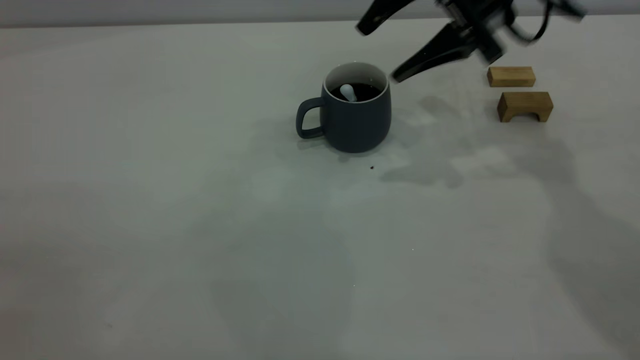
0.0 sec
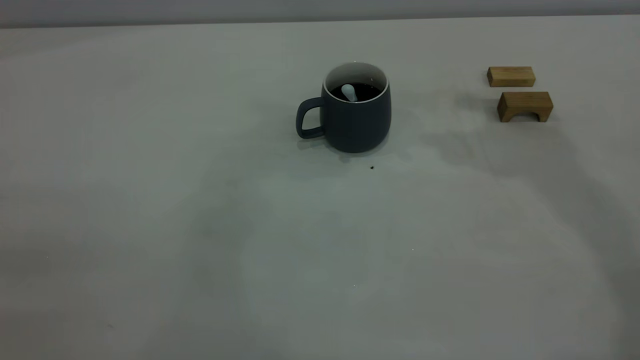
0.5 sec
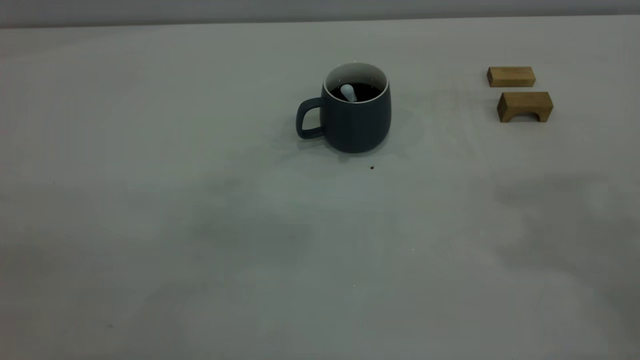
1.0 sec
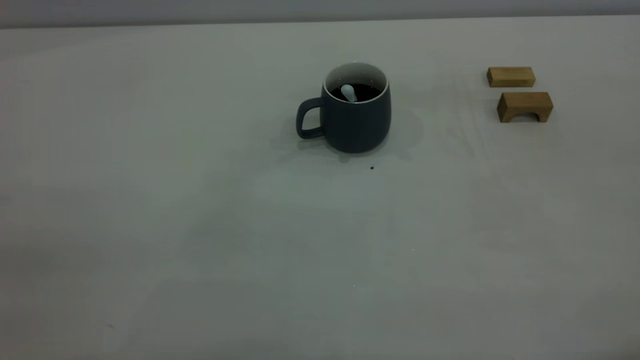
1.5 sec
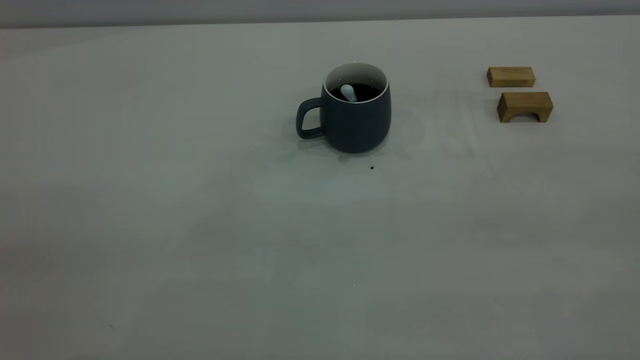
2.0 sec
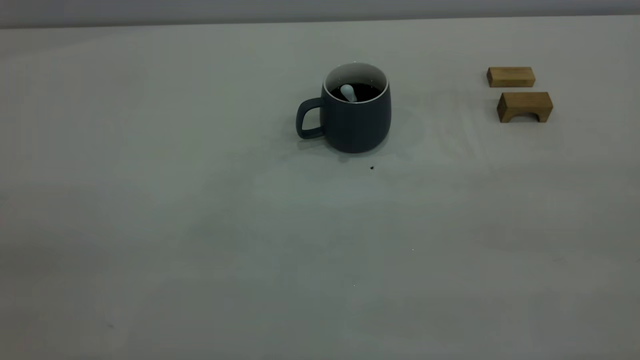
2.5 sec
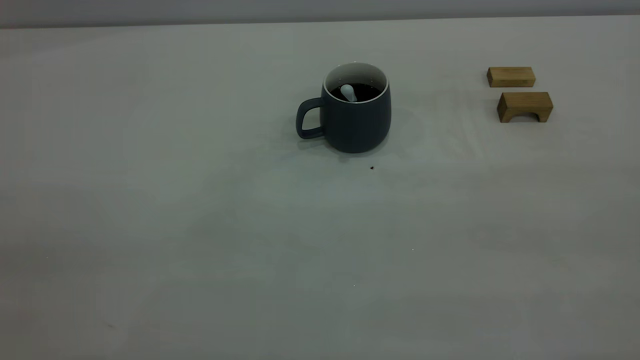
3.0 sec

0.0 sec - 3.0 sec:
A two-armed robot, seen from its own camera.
0.0 sec - 1.5 sec: The right gripper goes some 40 cm backward and upward, and closes.

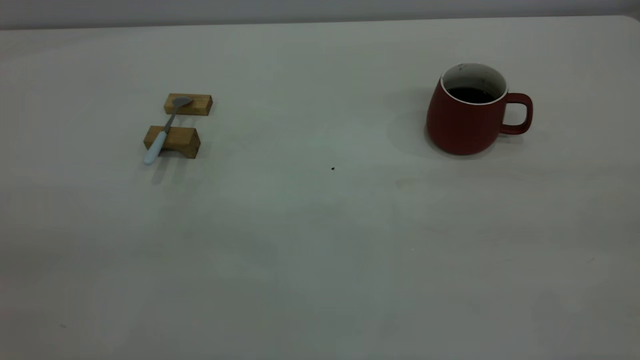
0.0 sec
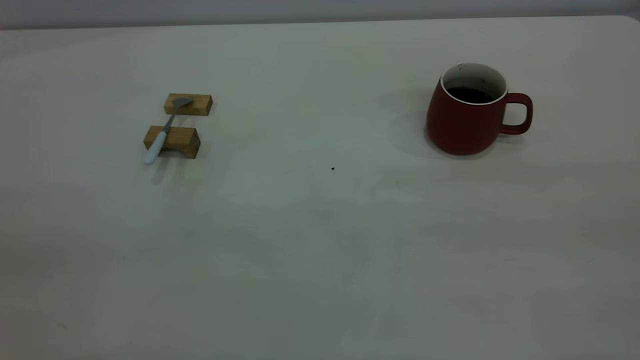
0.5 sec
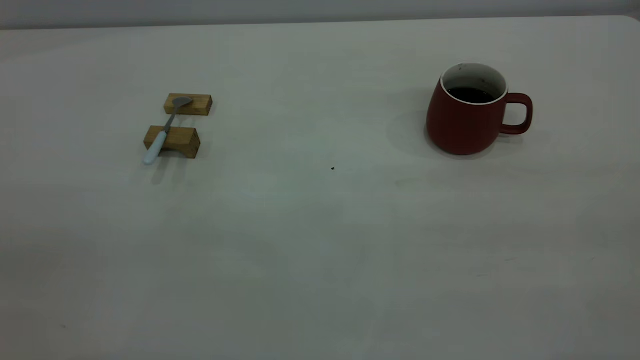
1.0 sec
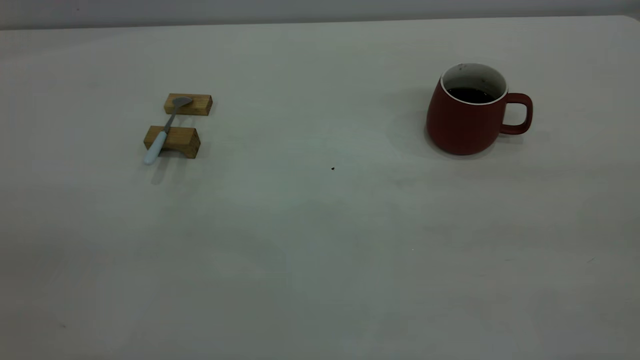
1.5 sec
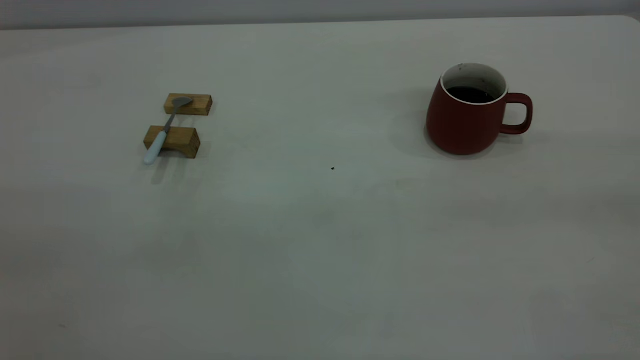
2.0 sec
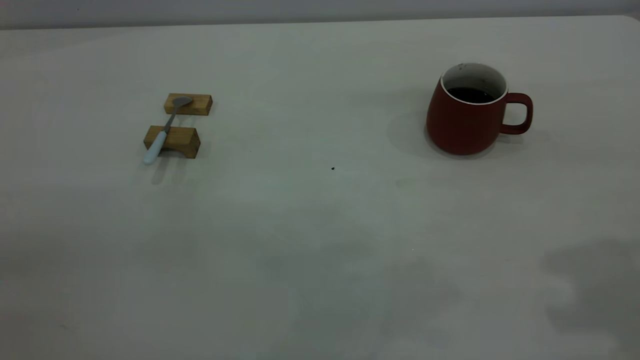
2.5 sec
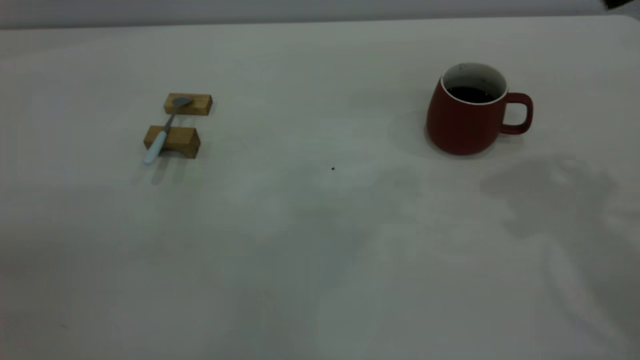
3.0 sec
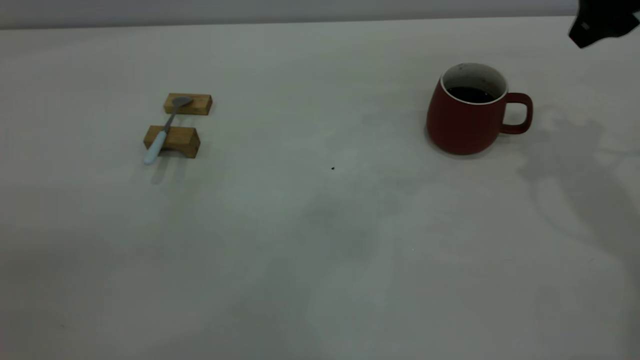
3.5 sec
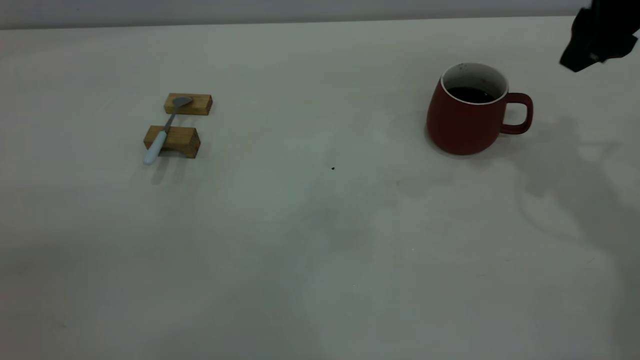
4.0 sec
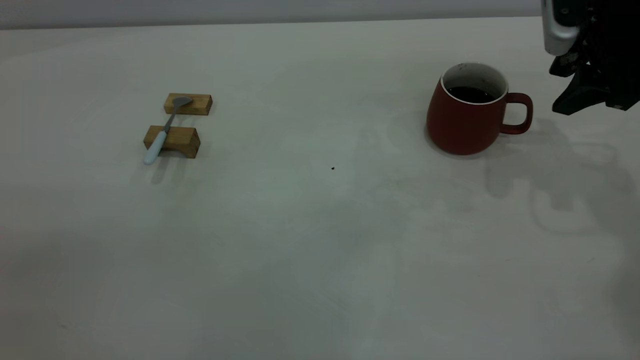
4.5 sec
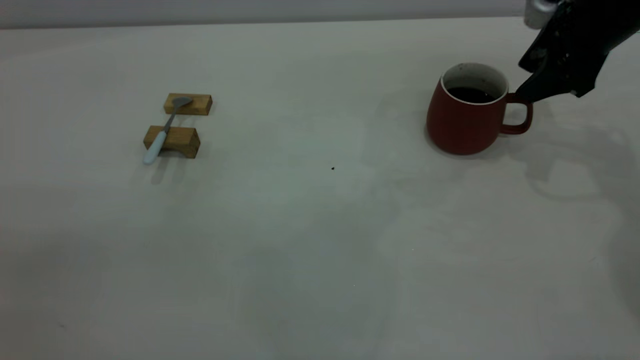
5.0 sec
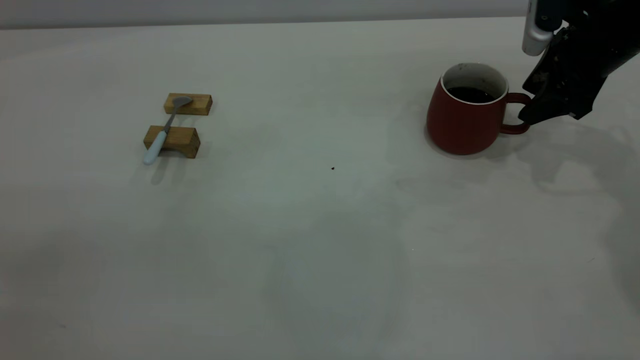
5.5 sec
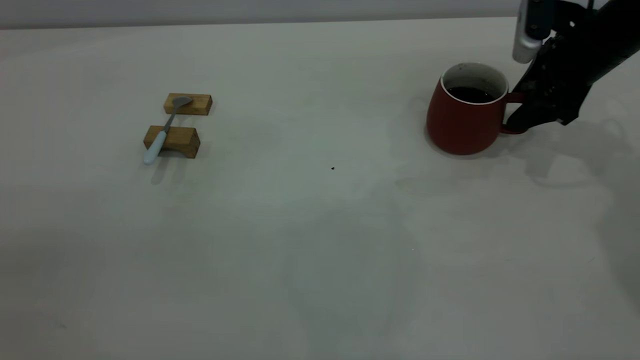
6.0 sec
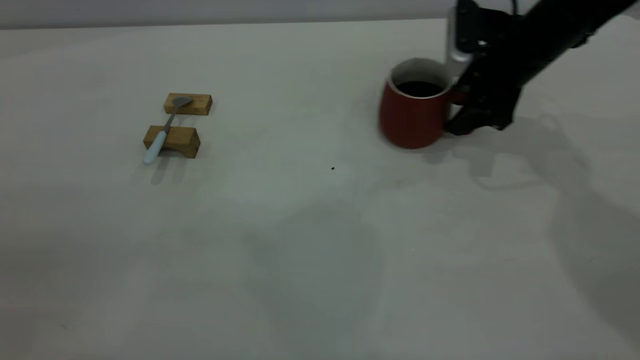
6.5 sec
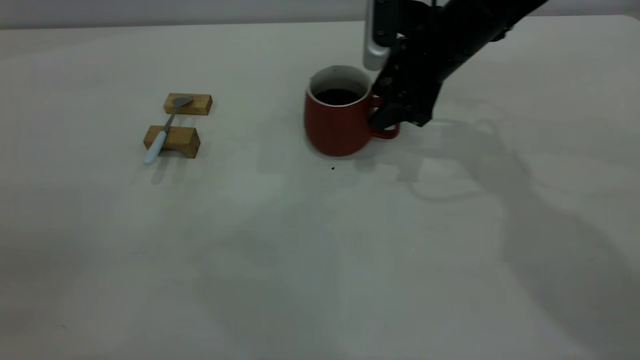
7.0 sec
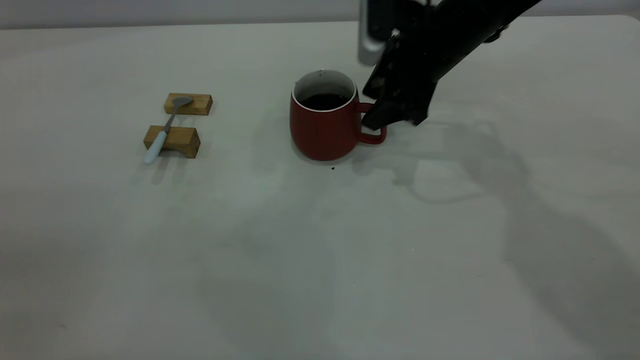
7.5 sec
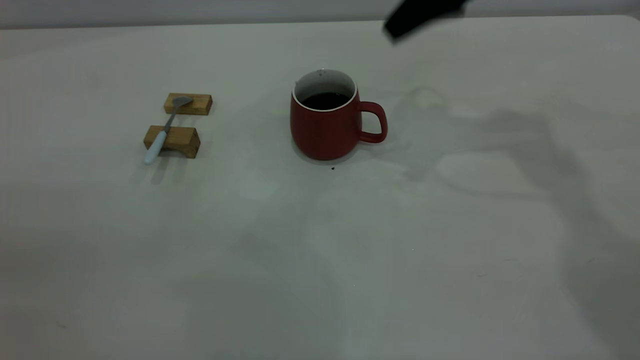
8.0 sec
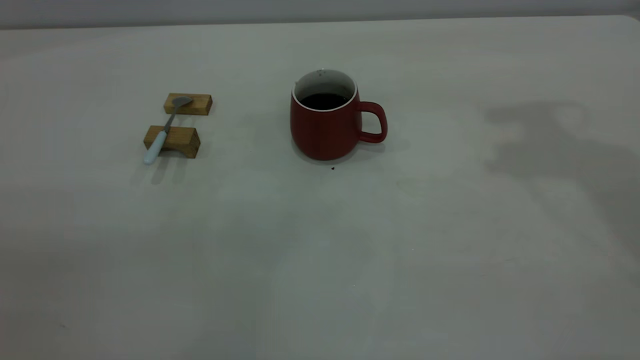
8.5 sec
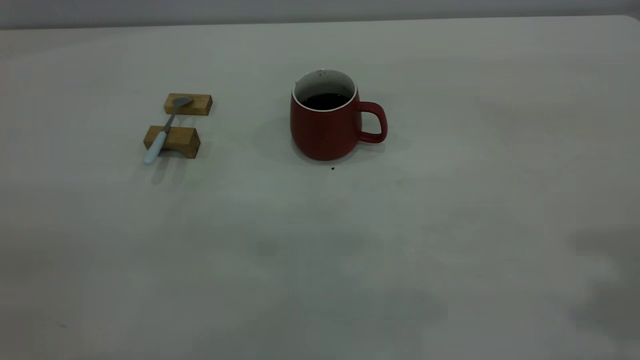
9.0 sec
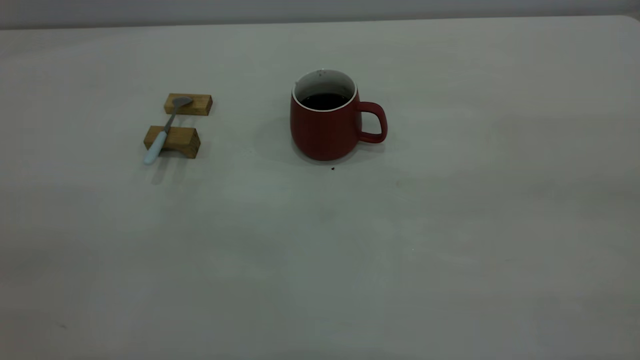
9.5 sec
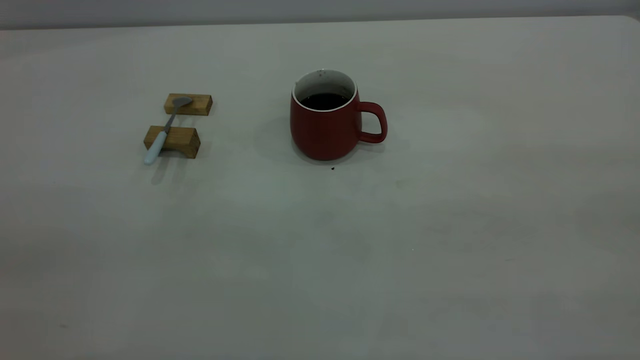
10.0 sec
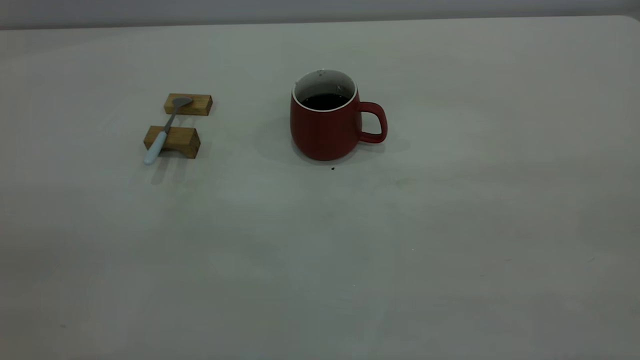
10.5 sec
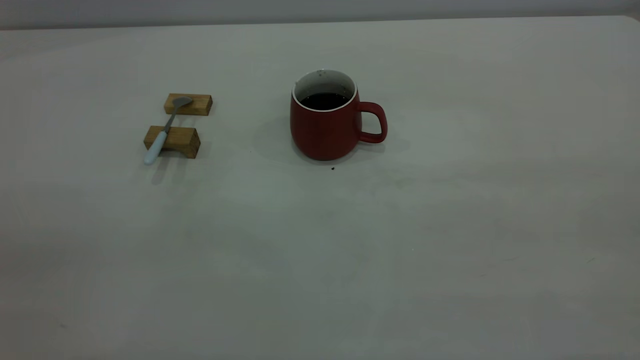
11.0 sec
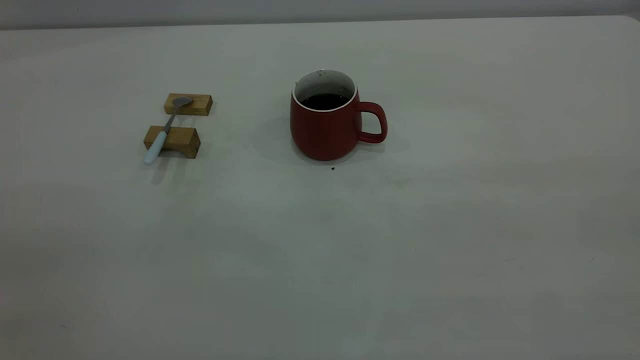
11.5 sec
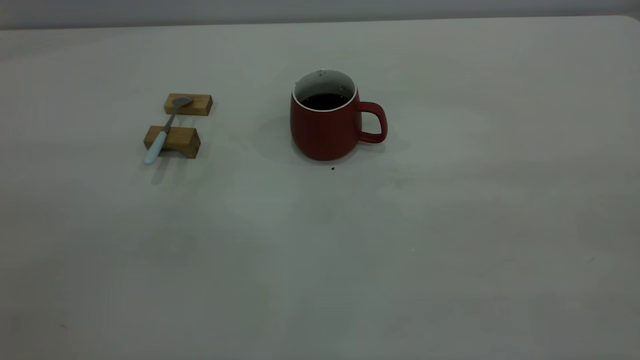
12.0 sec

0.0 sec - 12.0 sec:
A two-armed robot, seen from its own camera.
Step, 0.0 sec - 7.5 sec: Move the cup with coffee to the center of view.
2.0 sec - 4.0 sec: The right gripper is displaced forward and downward by some 35 cm, and opens up.
4.0 sec - 6.0 sec: The right gripper is displaced downward and forward by about 15 cm.
6.0 sec - 8.0 sec: The right gripper shifts approximately 20 cm upward and to the left.
8.0 sec - 10.0 sec: The right gripper is displaced backward by approximately 40 cm.

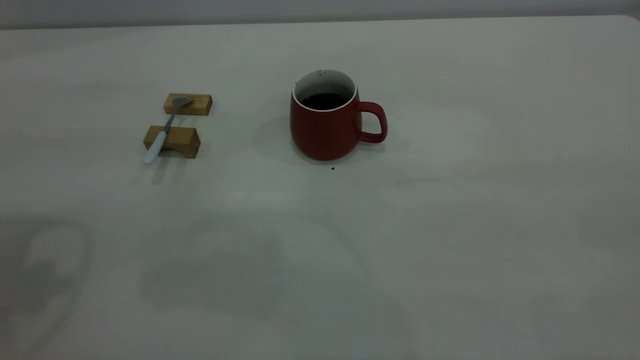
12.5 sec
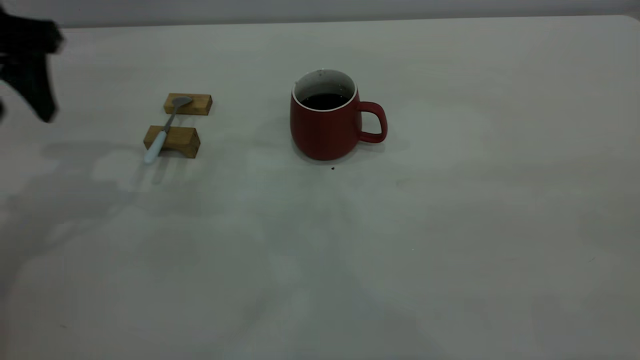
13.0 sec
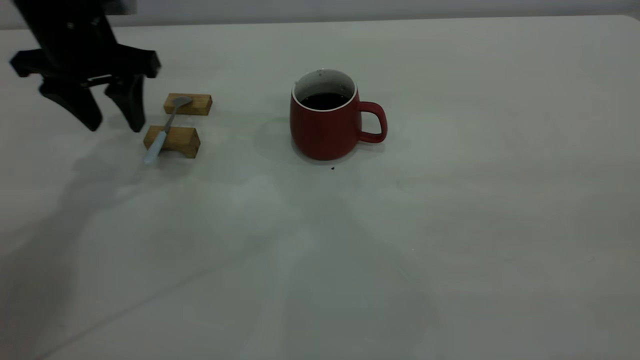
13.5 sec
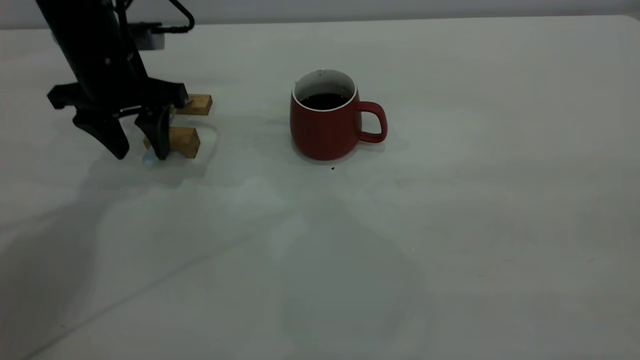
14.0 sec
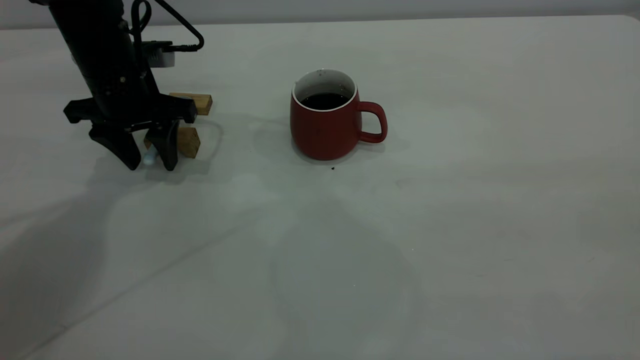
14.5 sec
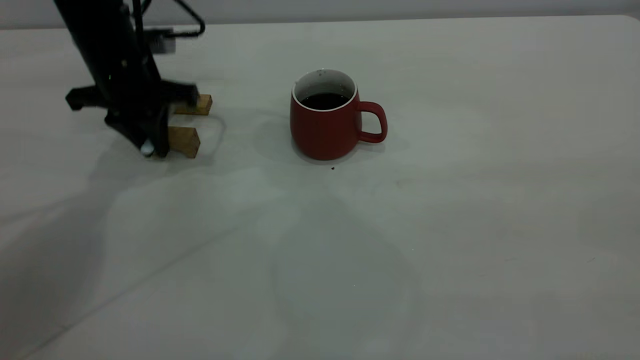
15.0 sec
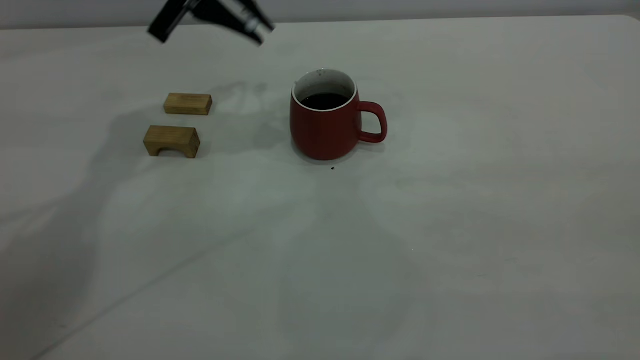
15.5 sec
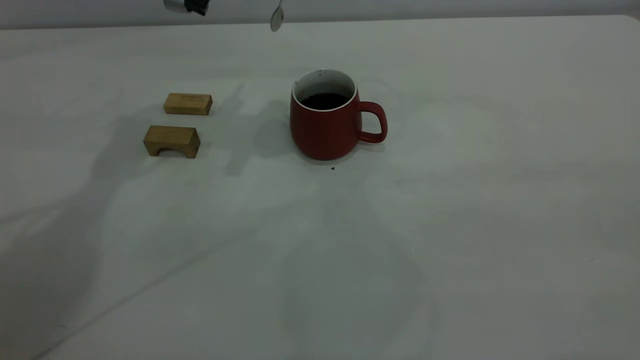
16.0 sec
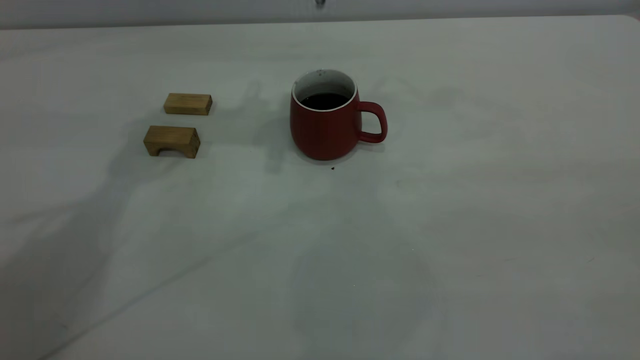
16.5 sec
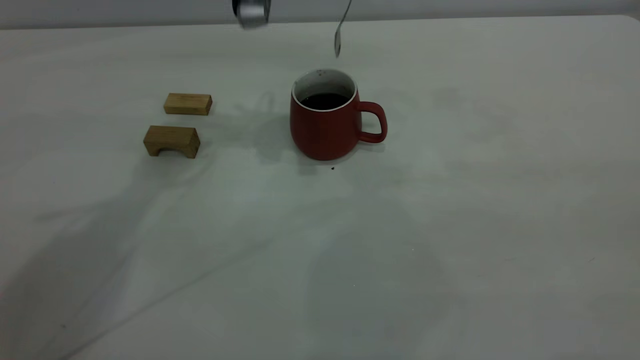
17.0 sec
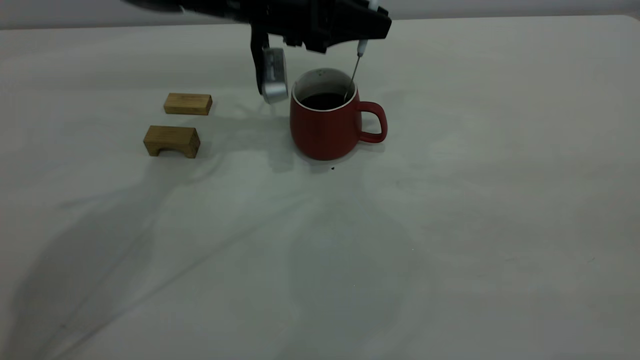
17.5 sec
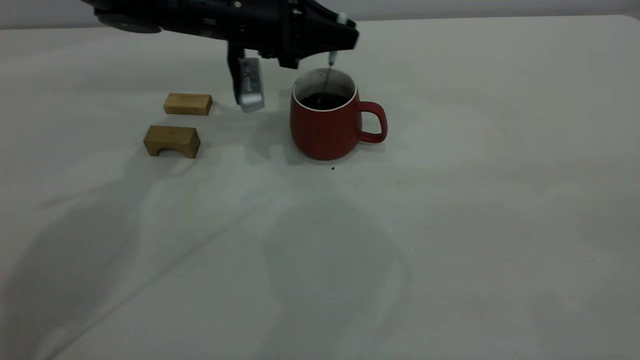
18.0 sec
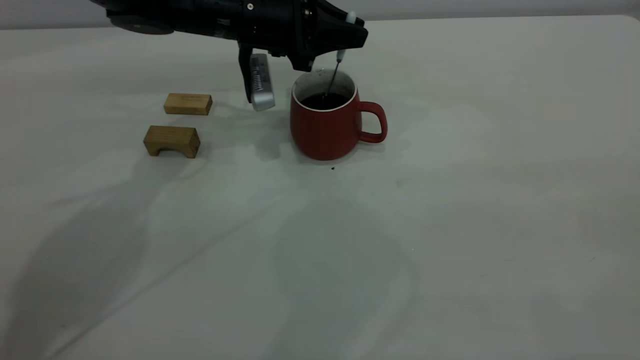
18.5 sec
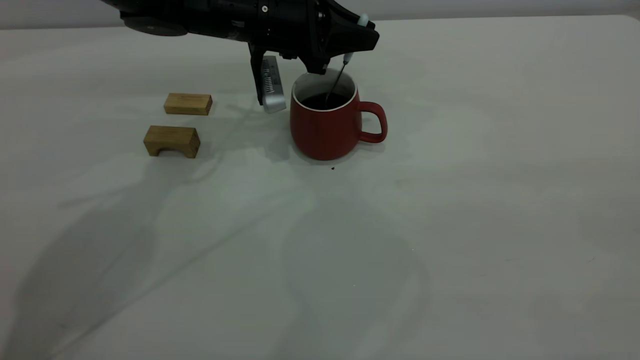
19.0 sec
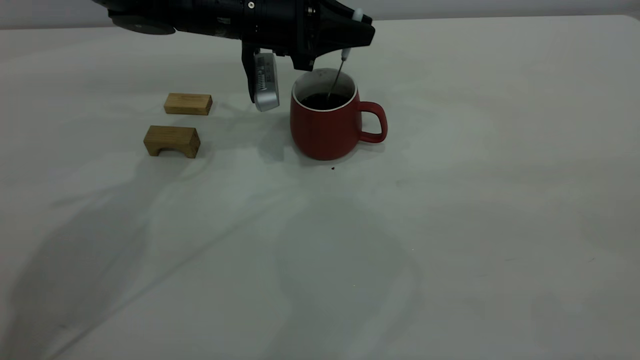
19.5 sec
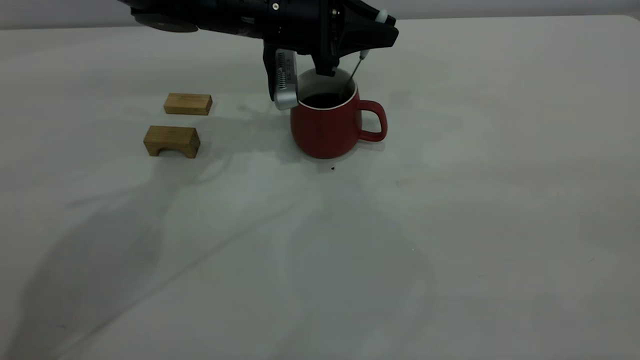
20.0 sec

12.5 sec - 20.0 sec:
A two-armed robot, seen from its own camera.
Step, 12.5 sec - 15.0 sec: Pick up the spoon.
12.5 sec - 14.5 sec: The left gripper is displaced downward and forward by some 30 cm.
14.5 sec - 16.5 sec: The left gripper moves upward and to the right, roughly 20 cm, and closes.
16.5 sec - 18.0 sec: The left gripper shifts approximately 15 cm downward.
18.0 sec - 20.0 sec: The grippers stay close to where they were, moving slightly.
